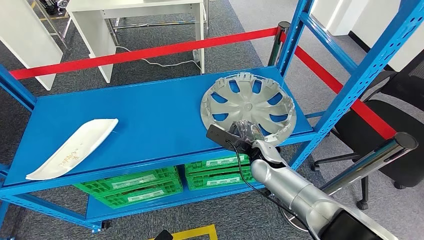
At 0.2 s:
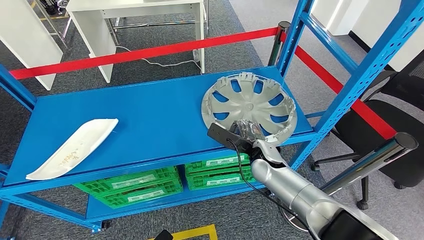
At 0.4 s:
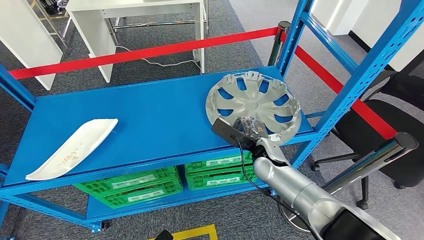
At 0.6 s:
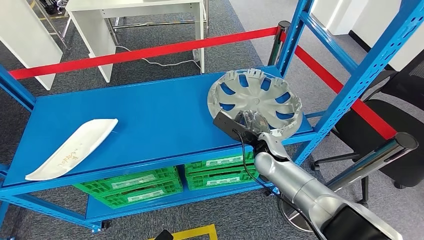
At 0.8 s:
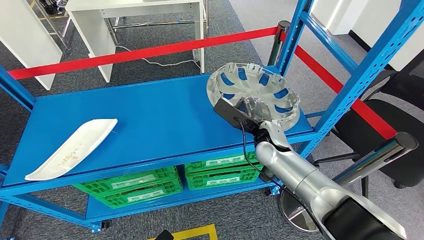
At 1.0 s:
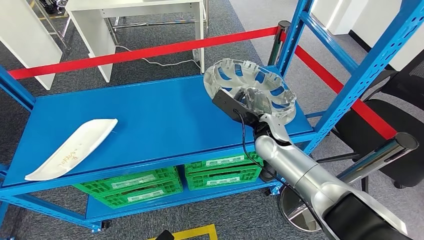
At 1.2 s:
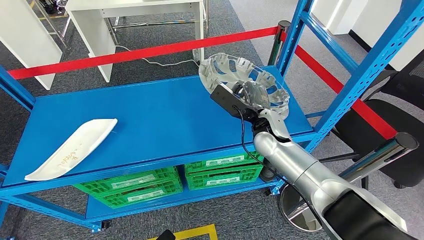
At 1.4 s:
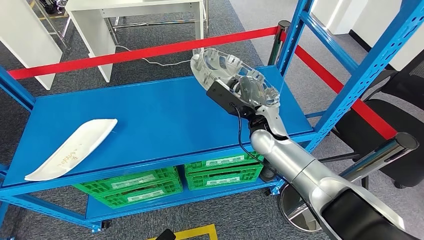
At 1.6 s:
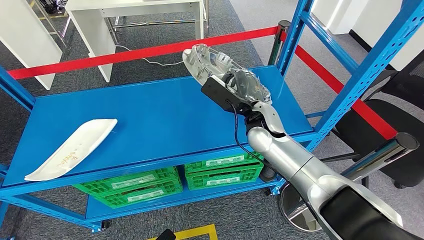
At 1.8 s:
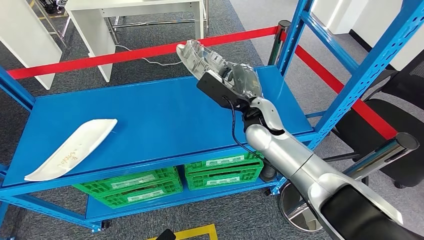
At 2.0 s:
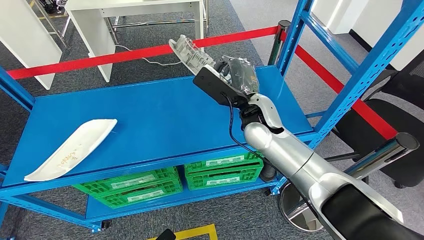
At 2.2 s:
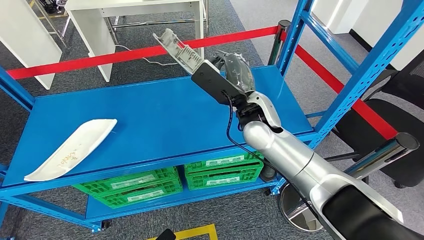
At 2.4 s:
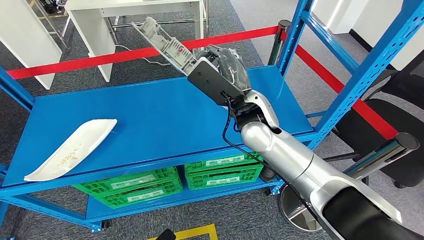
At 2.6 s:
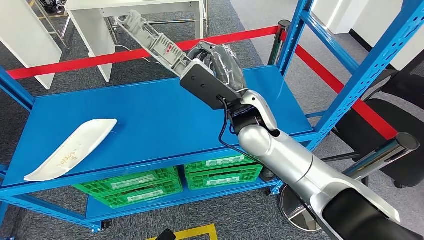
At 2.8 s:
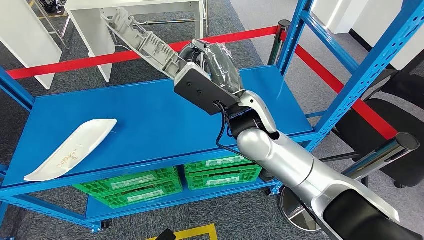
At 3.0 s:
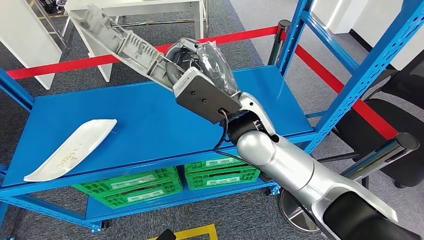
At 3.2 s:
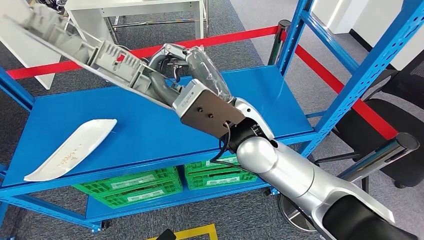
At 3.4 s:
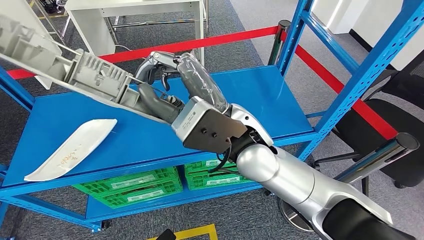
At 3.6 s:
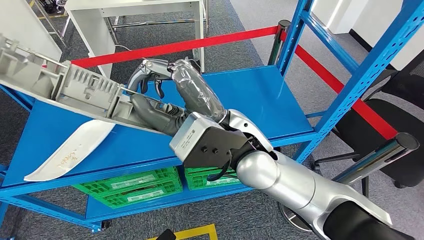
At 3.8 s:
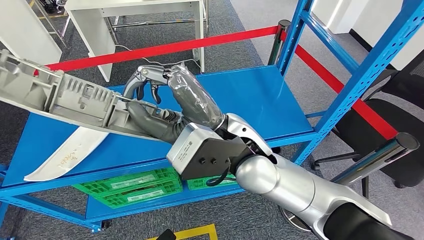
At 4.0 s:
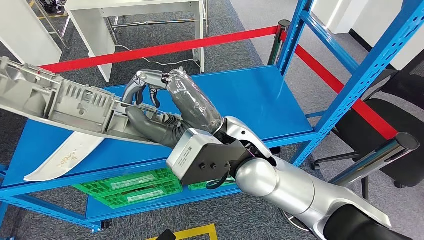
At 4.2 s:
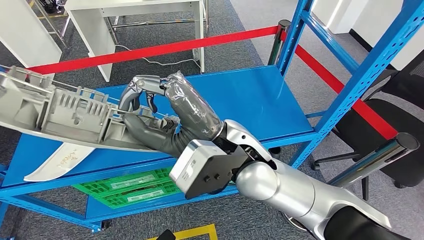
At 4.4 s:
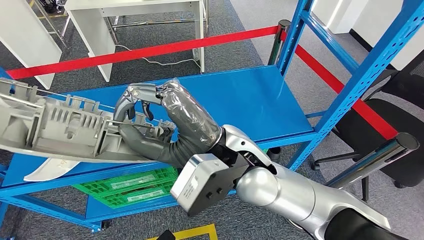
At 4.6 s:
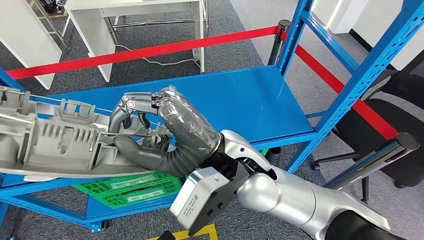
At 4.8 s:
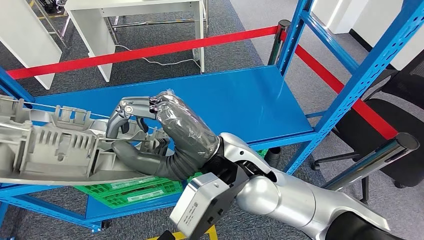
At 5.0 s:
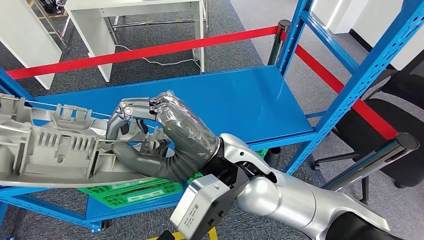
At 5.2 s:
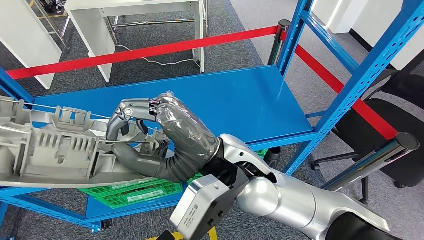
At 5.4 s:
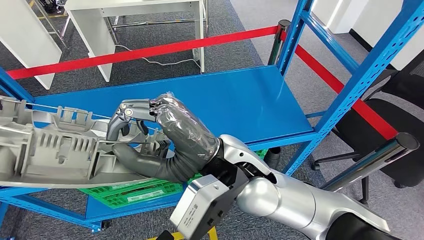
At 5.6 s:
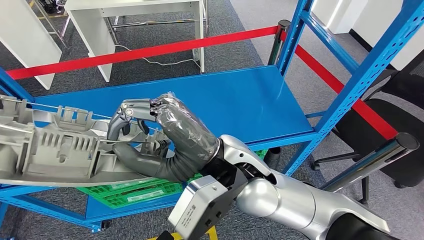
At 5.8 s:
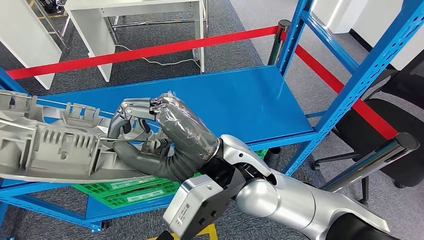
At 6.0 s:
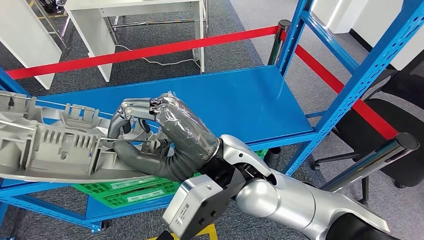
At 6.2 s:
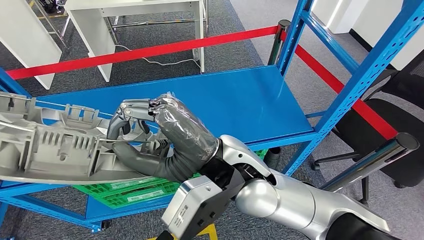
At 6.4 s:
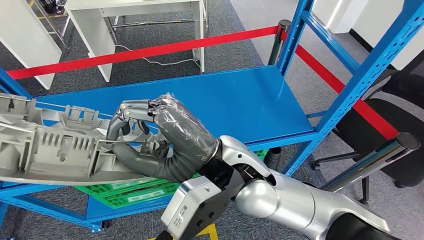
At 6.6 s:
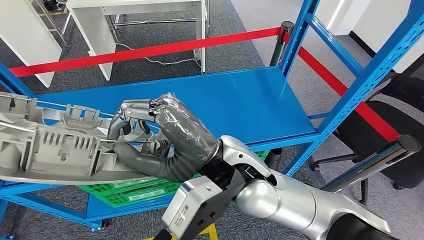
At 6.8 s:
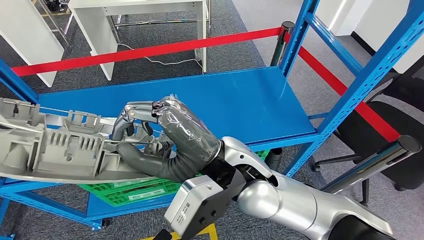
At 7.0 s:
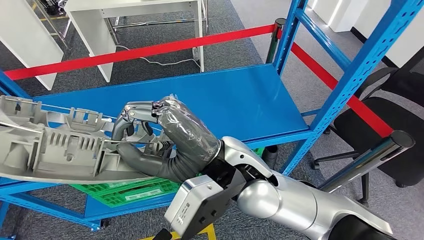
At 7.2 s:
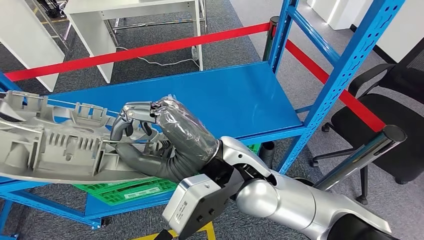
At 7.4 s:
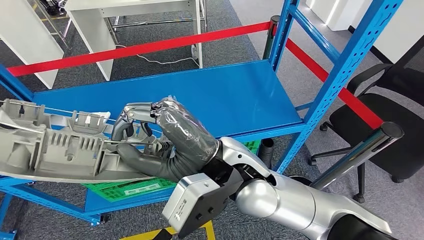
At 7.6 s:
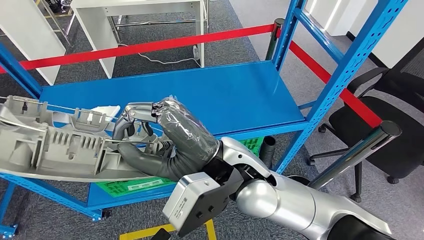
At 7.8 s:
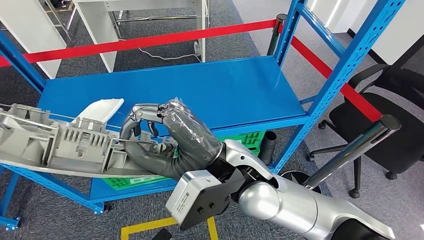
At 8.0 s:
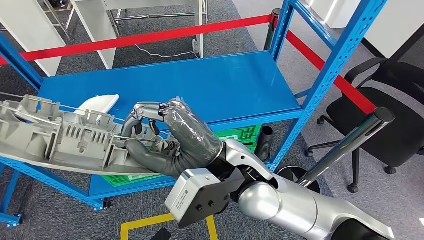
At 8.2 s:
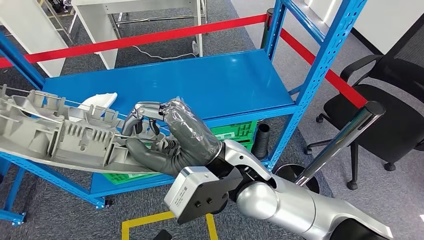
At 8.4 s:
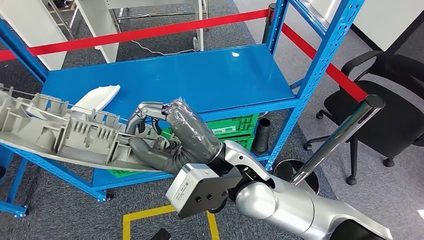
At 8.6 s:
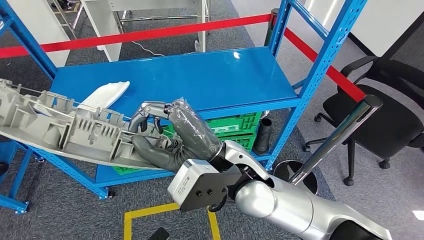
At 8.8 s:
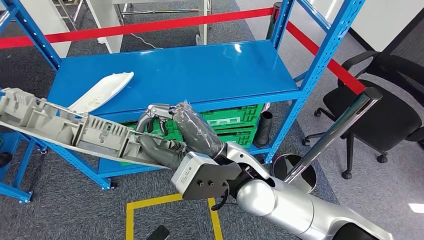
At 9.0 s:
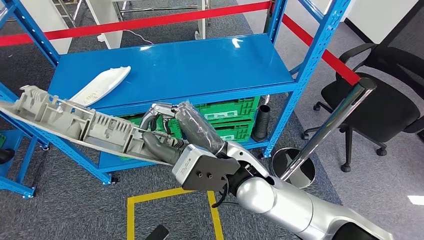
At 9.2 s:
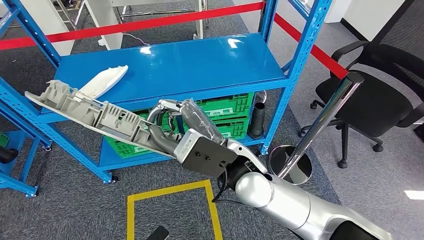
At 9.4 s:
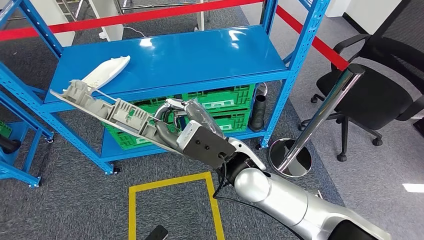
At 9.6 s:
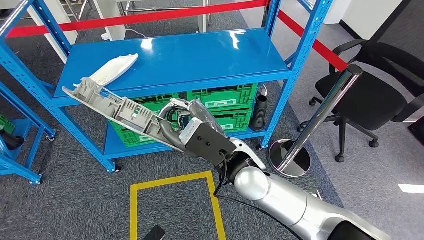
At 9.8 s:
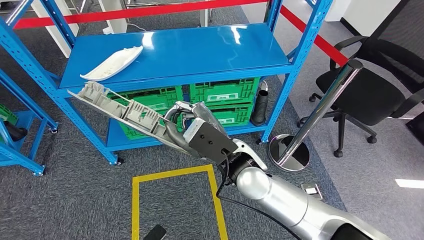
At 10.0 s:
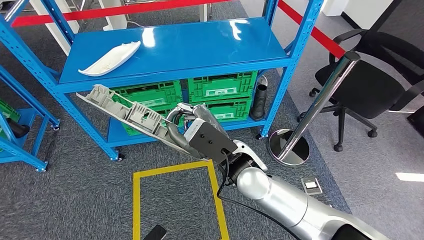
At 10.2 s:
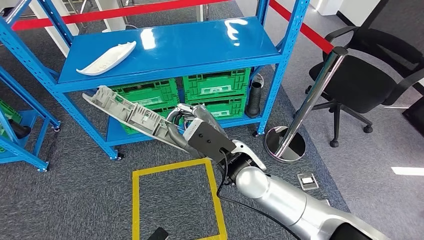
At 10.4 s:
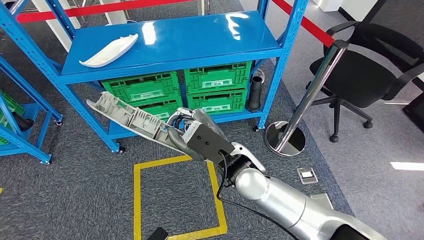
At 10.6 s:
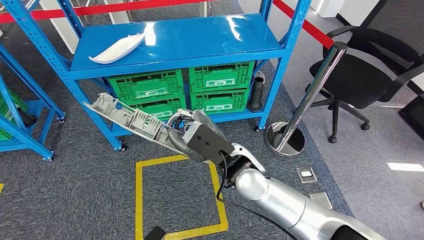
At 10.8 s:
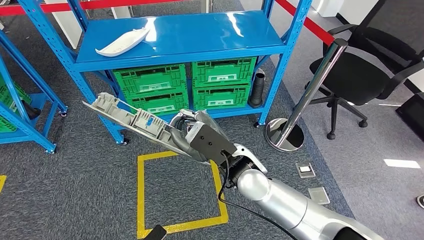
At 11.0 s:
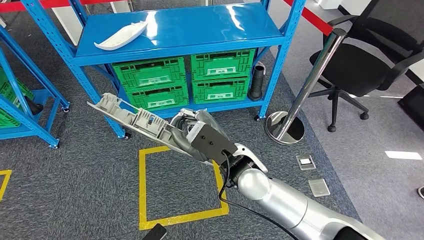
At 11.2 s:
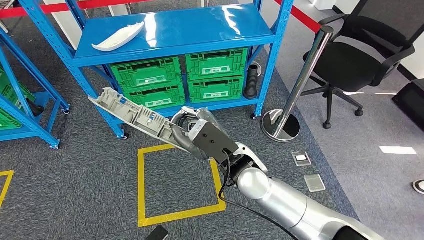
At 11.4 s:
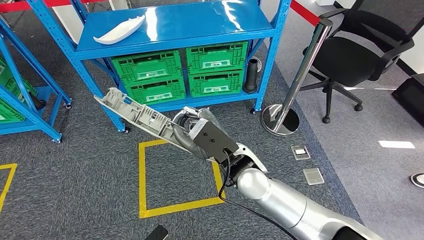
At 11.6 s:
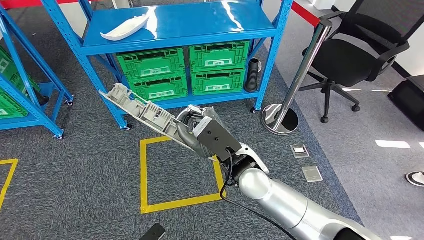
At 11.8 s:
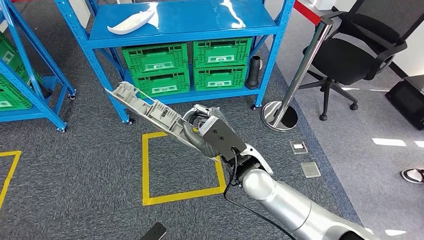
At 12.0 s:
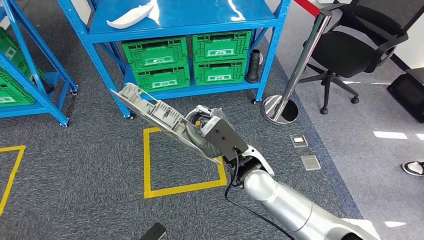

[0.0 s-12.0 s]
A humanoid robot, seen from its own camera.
Step, 0.0 to 5.2 s: Pick up the large material from the shelf.
0.0 to 1.6 s: The right hand moves upward, some 10 cm.
1.6 to 3.0 s: The right hand shifts approximately 15 cm upward, backward and to the left.

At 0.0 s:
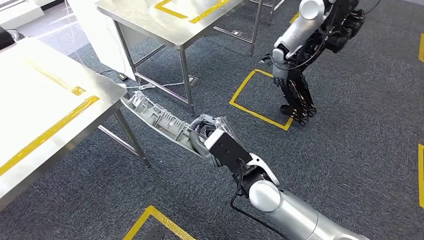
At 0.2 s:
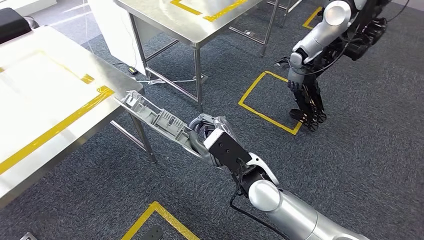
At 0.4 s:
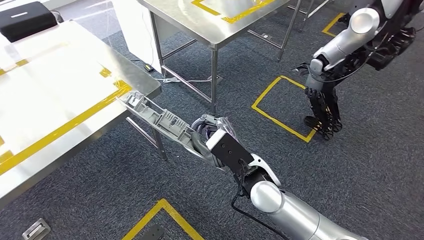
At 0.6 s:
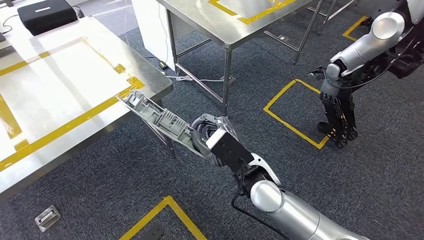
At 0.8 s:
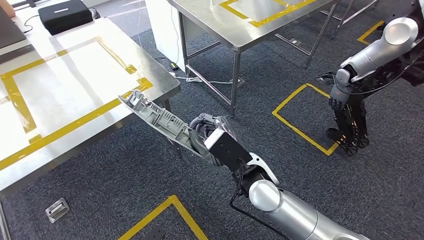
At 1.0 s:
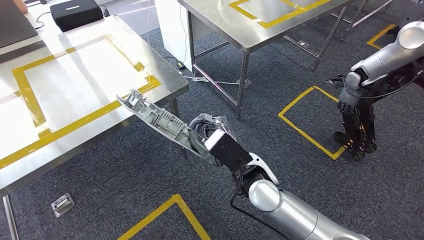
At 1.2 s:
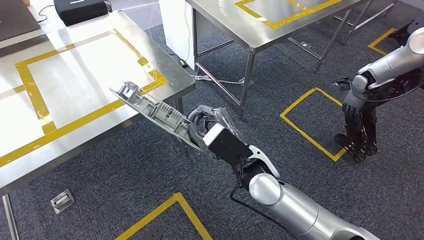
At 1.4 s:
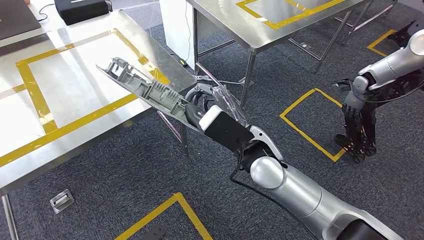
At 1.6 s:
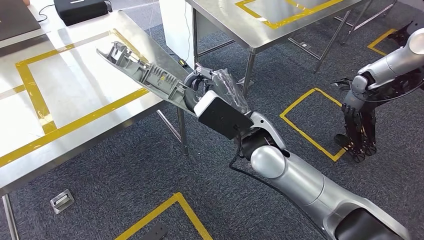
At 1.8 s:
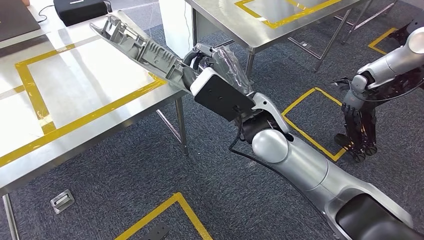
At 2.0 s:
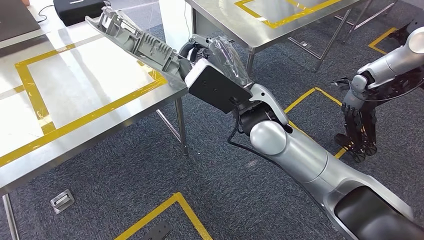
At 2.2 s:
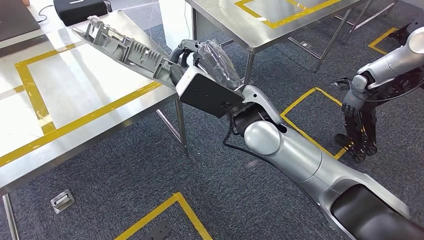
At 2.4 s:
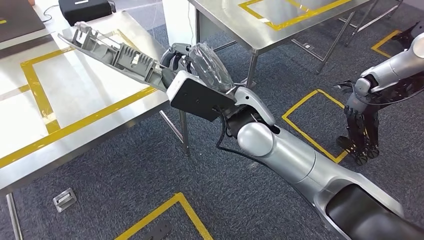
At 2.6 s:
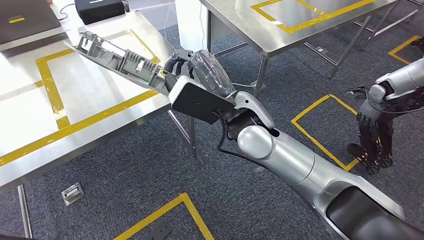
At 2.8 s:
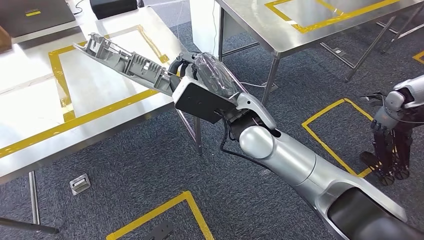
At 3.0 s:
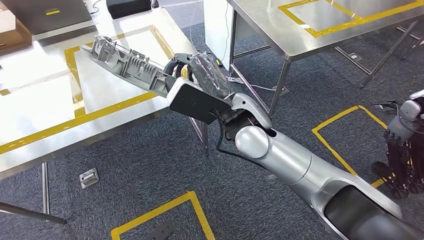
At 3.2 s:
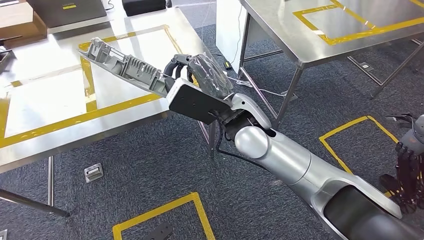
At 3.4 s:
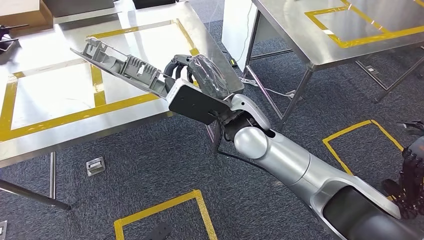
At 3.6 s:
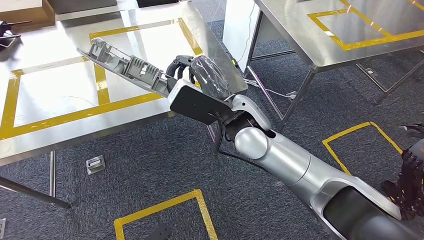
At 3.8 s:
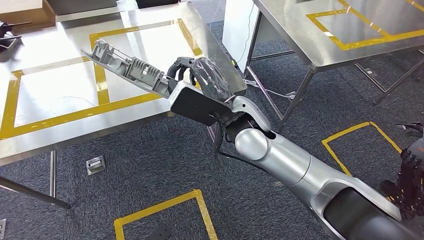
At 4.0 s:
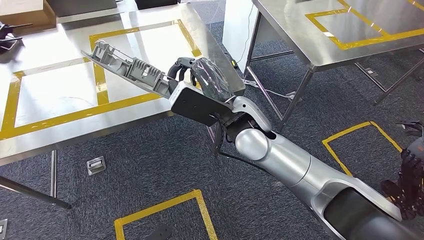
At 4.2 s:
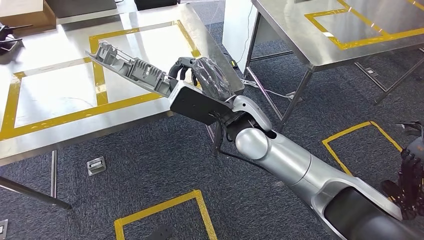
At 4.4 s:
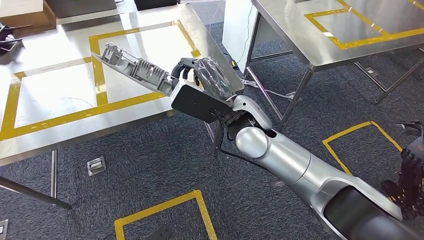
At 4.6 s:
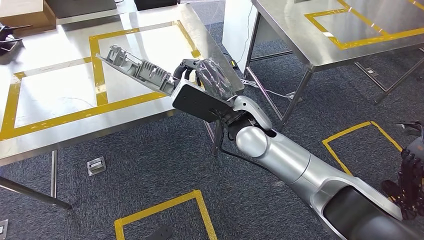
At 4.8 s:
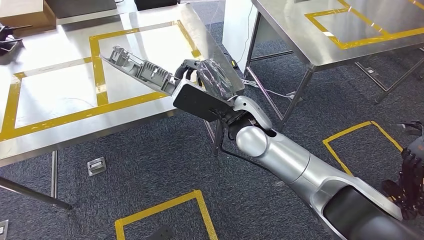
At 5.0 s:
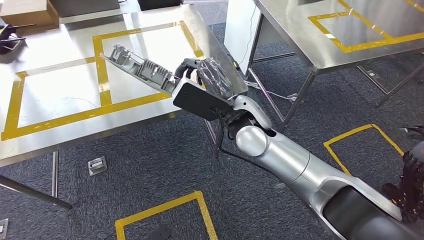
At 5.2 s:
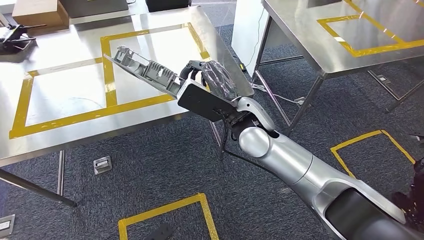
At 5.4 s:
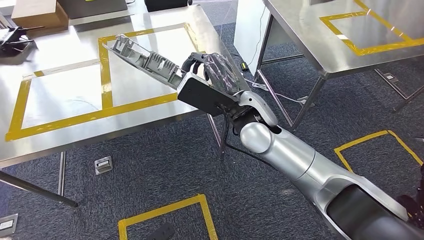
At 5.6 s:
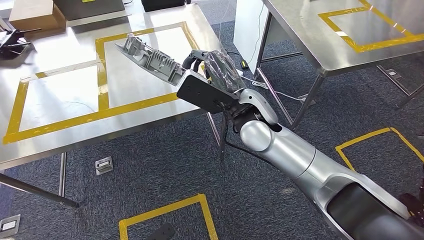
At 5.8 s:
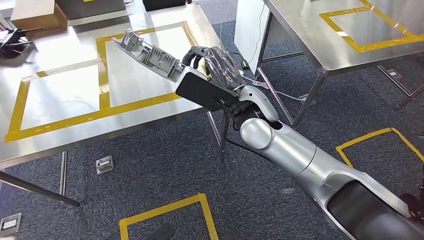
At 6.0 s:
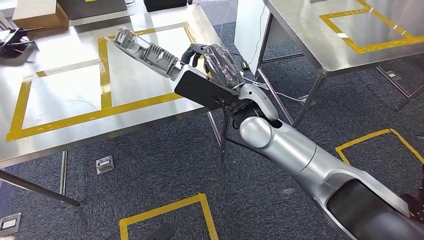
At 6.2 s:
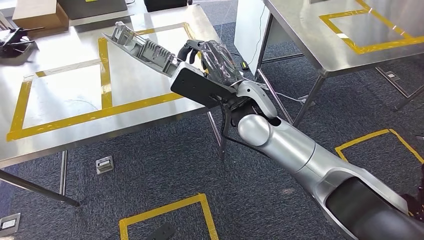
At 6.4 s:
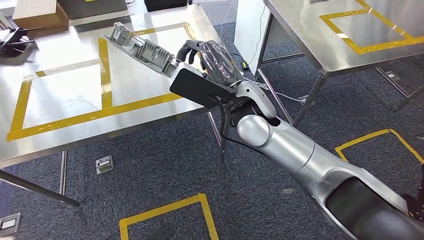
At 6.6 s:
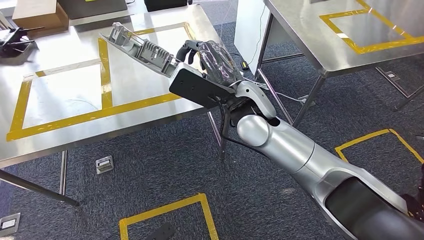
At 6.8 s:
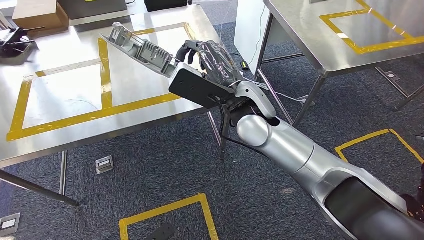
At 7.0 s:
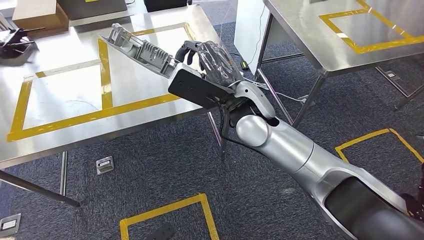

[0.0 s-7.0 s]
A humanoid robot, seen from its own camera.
Step, 0.0 to 3.4 s: Move the large material to the workbench.
5.6 to 7.0 s: The hands move only a little.
